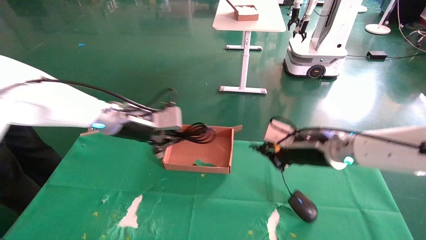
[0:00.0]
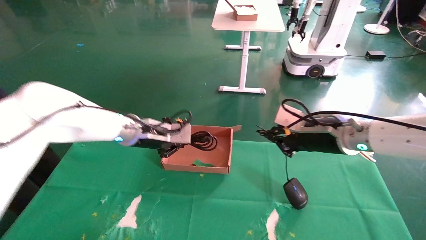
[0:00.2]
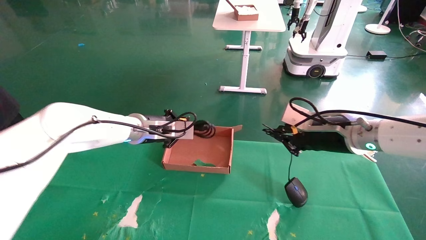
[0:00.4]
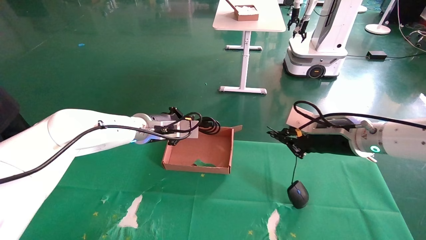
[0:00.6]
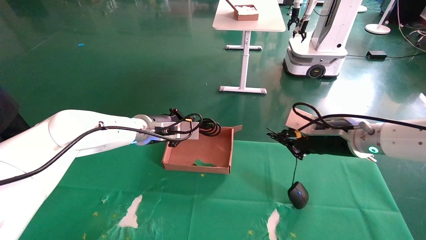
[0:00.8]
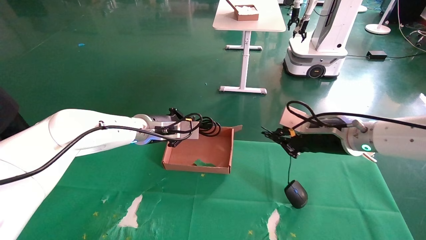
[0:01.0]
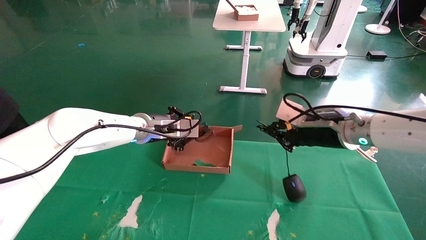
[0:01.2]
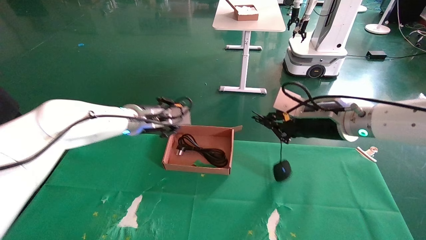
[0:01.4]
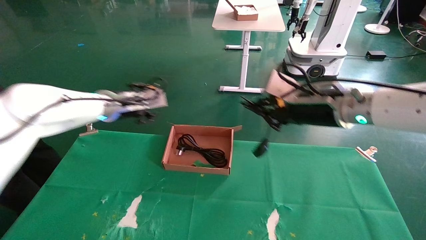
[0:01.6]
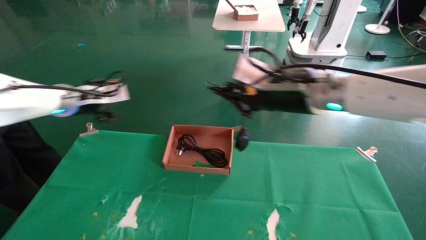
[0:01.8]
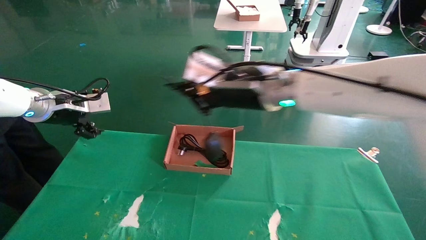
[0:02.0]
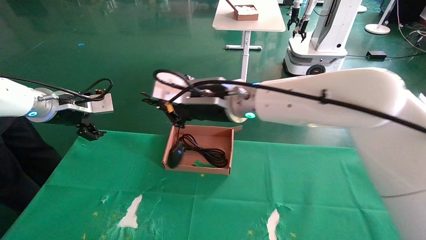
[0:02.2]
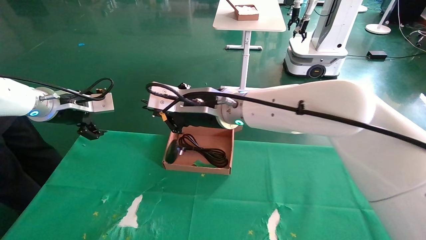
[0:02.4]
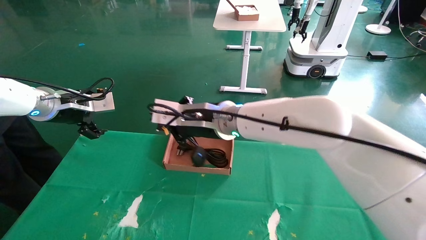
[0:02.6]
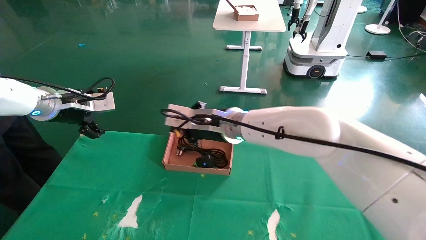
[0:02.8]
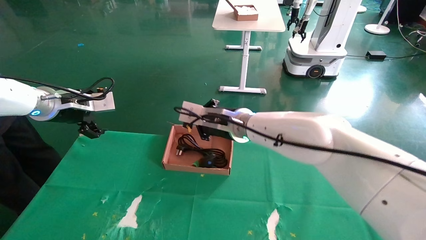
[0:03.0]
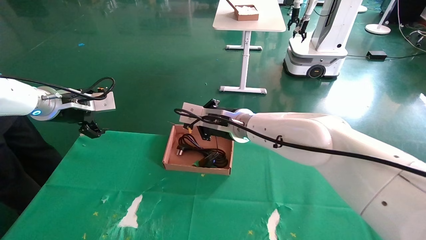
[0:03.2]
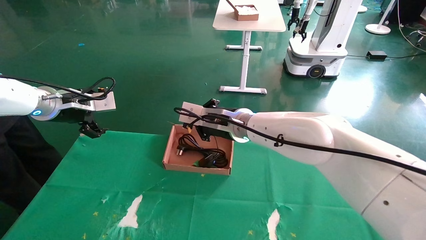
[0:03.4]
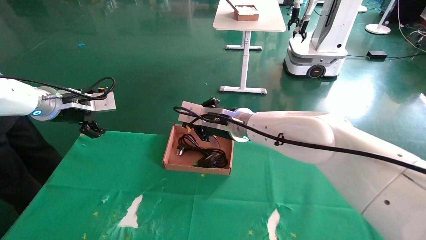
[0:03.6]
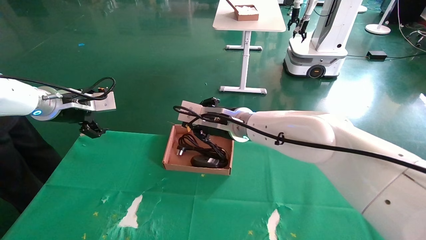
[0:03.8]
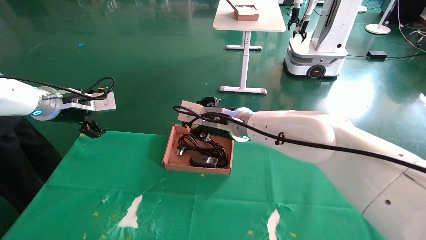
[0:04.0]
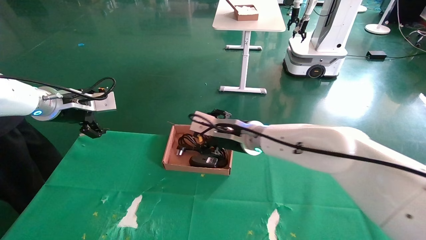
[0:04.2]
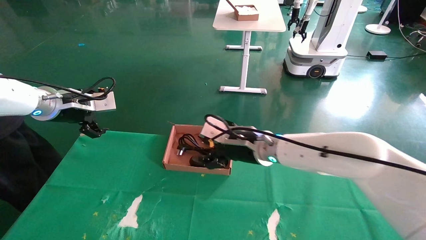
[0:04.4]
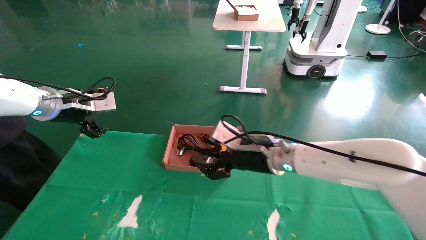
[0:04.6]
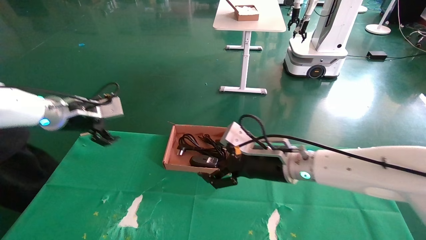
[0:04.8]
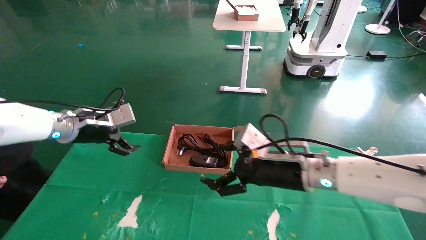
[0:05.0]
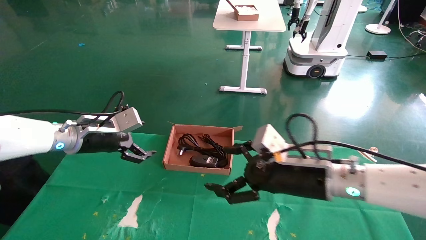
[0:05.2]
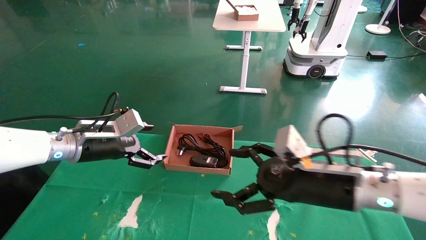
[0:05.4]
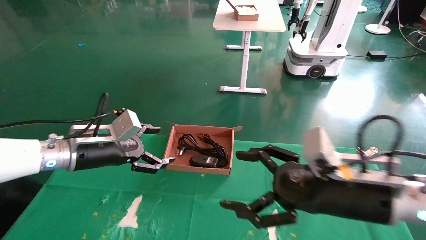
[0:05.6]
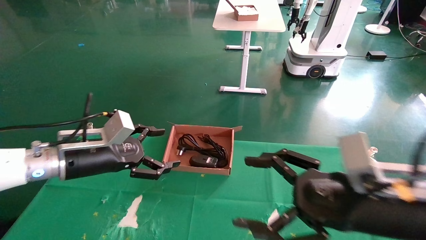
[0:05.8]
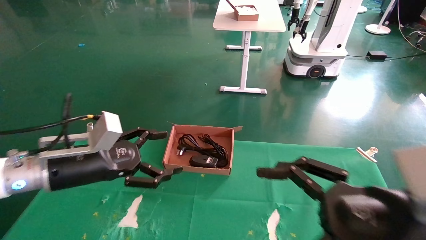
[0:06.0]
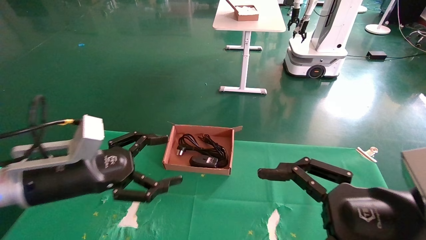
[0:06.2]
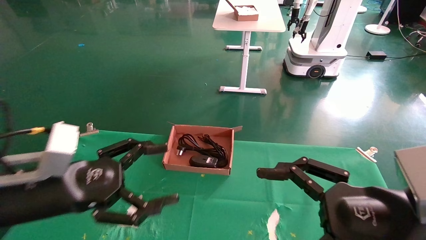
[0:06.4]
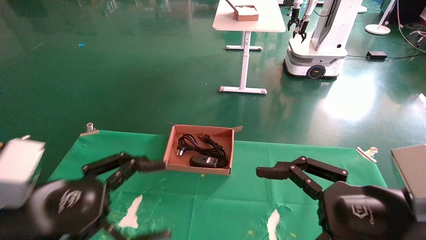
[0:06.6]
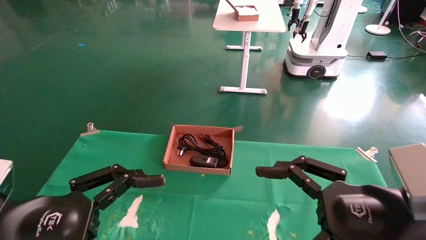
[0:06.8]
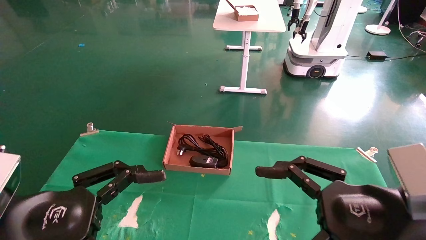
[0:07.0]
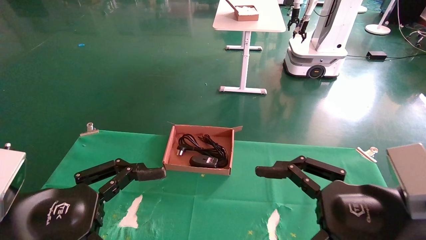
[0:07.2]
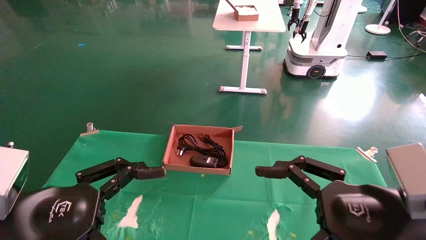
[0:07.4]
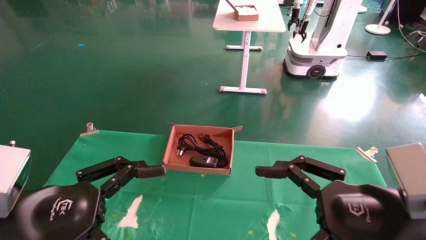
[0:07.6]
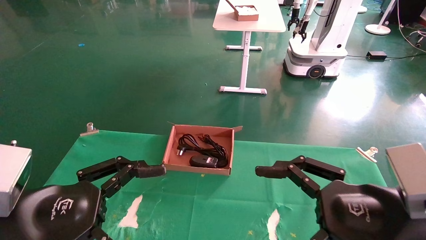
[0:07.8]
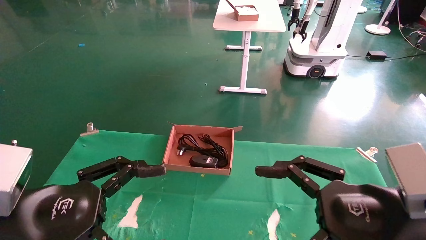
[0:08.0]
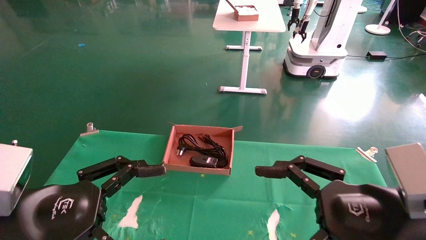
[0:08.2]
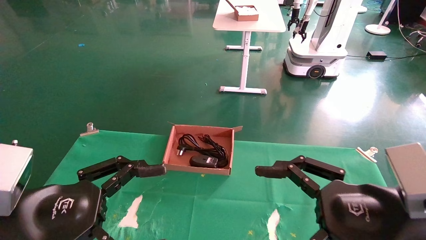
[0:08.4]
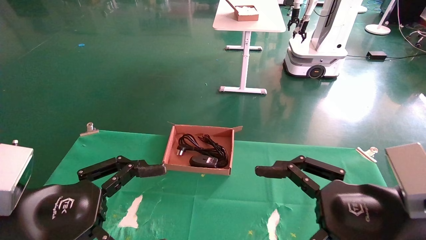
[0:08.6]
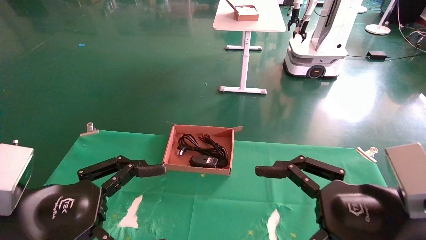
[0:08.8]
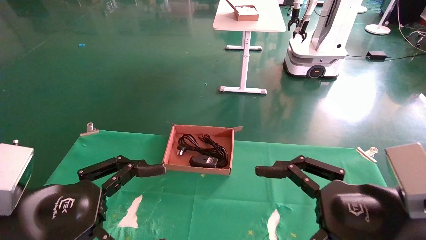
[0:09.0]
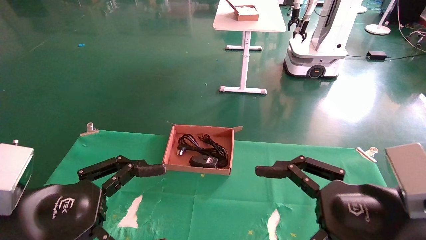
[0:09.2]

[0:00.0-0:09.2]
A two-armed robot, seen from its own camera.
Step, 0:00.4 to 0:04.8: Place the mouse and power cord into the box.
0:00.0 to 0:01.6: The right gripper moves upward, approximately 10 cm; the left gripper moves about 5 cm, and opens its fingers.
0:01.6 to 0:03.0: The right gripper travels to the left and forward by roughly 15 cm; the left gripper heads to the left, covering approximately 10 cm, and opens its fingers.
0:03.0 to 0:04.6: The right gripper heads to the right and downward, covering approximately 10 cm, and opens its fingers.
0:04.6 to 0:06.2: The left gripper travels backward, downward and to the right by about 20 cm, while the right gripper shifts some 25 cm backward and to the right.
0:06.2 to 0:07.6: The left gripper travels backward by approximately 10 cm.
0:07.6 to 0:09.2: Both grippers stay about where they are.
